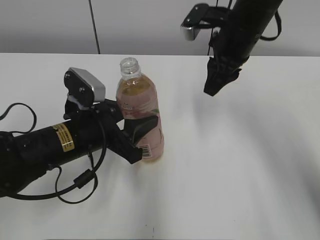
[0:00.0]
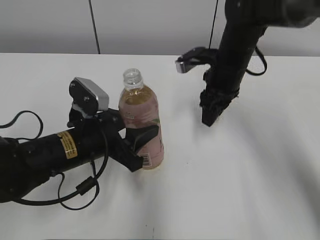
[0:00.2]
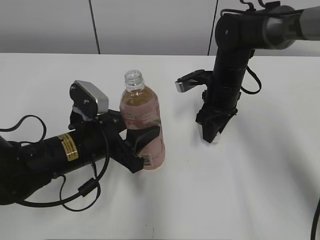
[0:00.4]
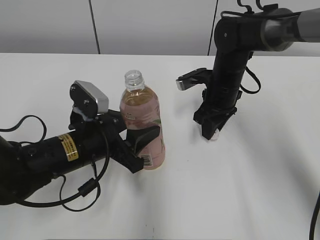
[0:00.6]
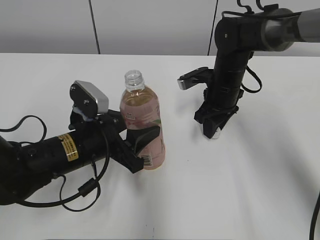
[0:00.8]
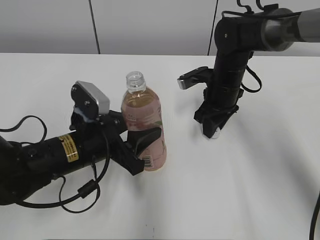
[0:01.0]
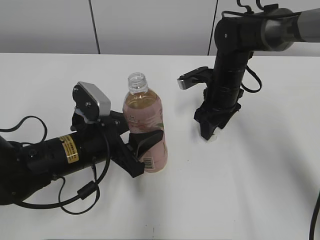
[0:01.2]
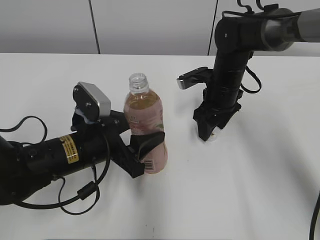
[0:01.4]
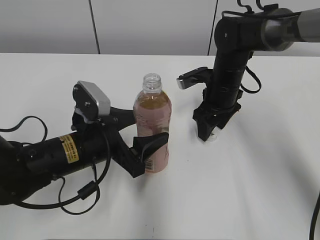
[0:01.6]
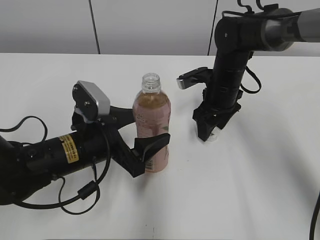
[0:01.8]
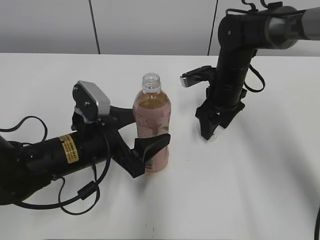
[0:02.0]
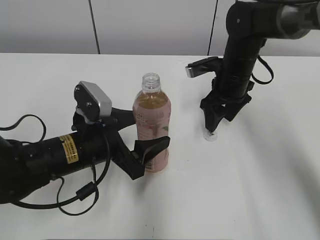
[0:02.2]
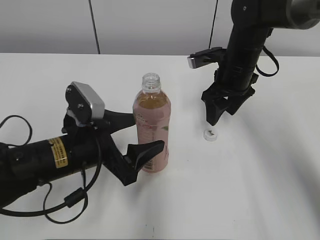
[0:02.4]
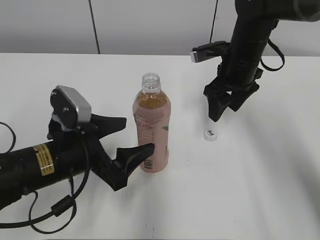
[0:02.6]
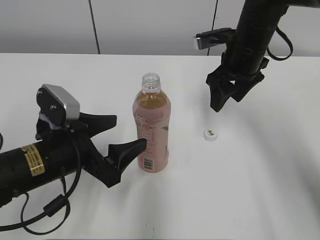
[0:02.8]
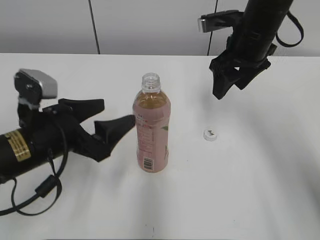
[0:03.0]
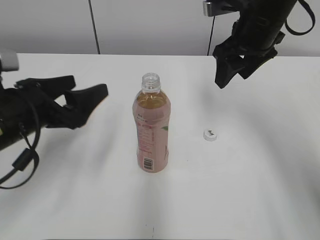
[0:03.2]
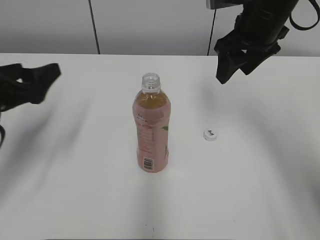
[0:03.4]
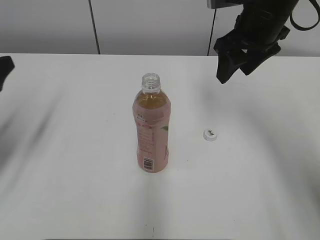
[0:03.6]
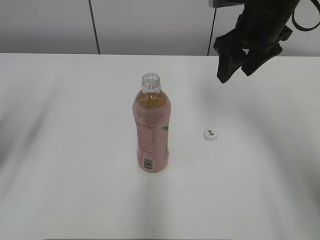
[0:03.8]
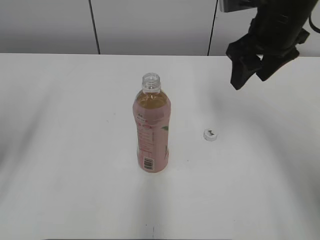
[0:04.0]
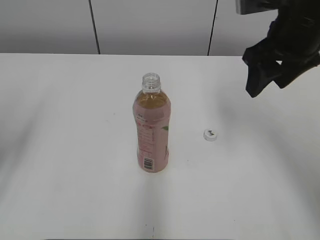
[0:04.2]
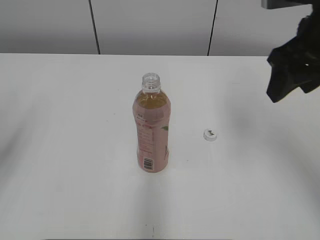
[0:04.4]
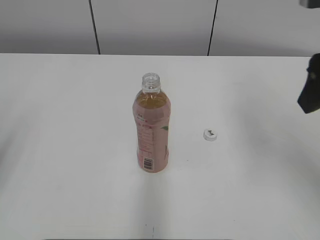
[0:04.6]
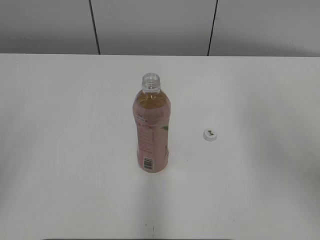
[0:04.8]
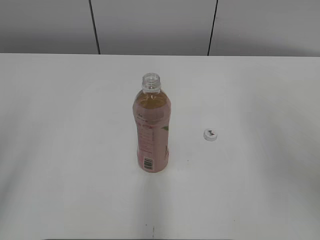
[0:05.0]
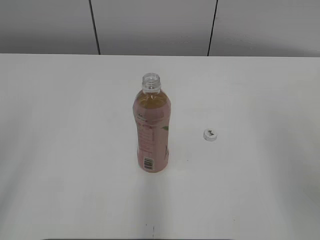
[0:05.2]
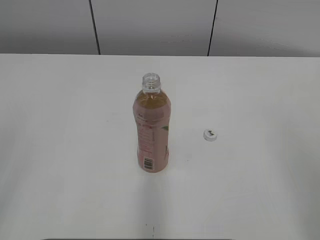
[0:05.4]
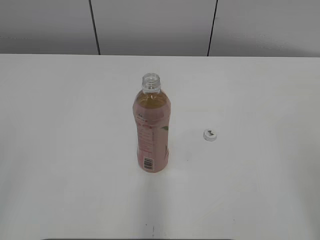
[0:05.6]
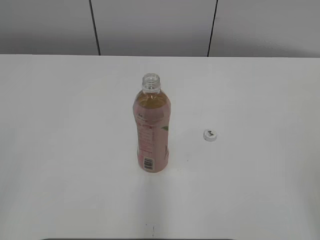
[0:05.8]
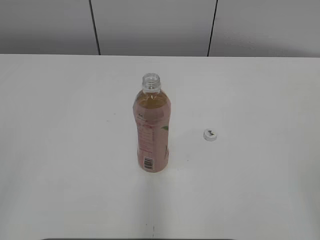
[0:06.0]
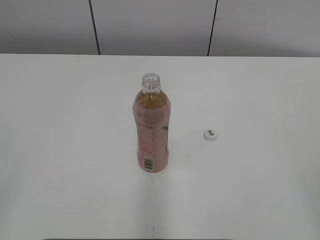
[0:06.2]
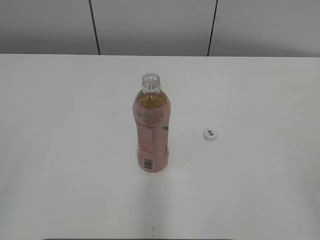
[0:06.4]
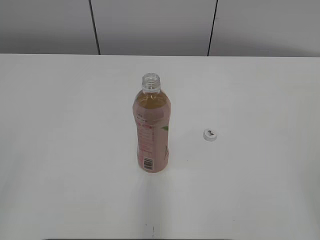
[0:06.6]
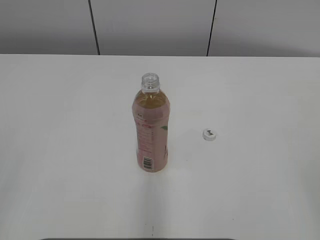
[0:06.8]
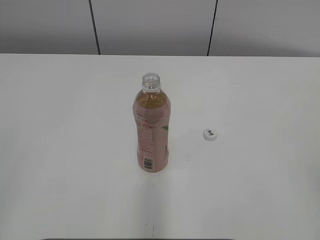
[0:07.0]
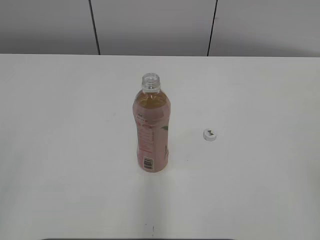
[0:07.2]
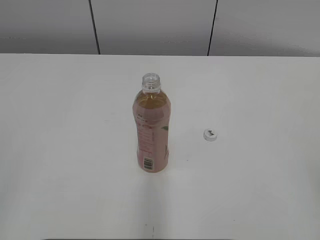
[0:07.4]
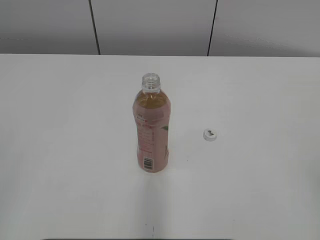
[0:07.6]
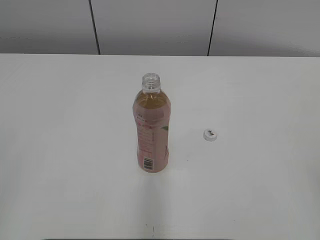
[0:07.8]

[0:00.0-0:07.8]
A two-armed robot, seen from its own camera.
Step, 0:00.0 to 0:01.6: Place the bottle cap on the right.
Step, 0:01.8 to 0:02.6: Place the Peach Oolong Tea with the left hand.
0:00.0 to 0:01.6: The right gripper travels downward by about 15 cm, and opens. Meanwhile the left gripper opens.
0:01.6 to 0:03.2: The right gripper is displaced upward by about 15 cm; the left gripper is displaced to the left and upward by some 10 cm.
0:03.2 to 0:04.6: The left gripper moves to the left, backward and upward, roughly 20 cm. Meanwhile the right gripper shifts some 15 cm backward, upward and to the right.
0:04.6 to 0:06.2: The right gripper heads backward, covering roughly 25 cm; the left gripper heads backward, covering about 15 cm, and closes.

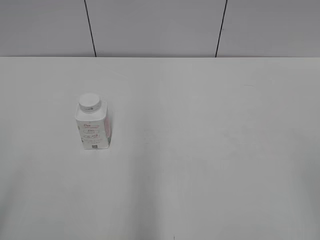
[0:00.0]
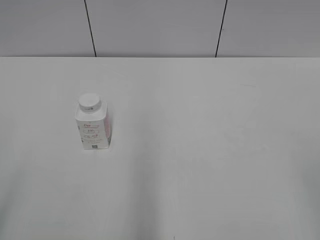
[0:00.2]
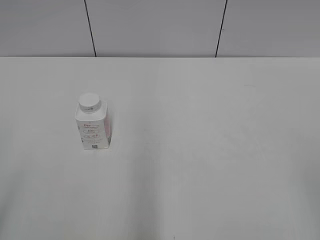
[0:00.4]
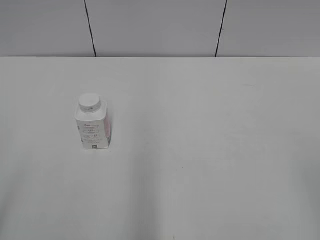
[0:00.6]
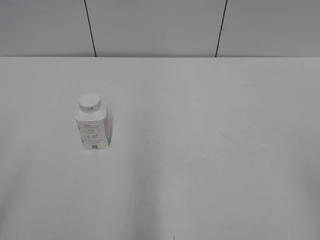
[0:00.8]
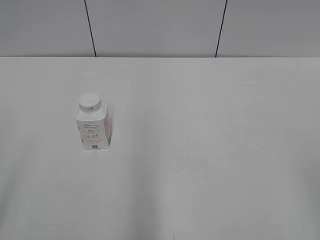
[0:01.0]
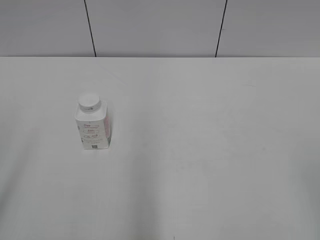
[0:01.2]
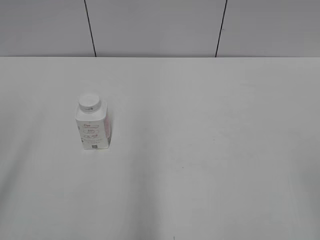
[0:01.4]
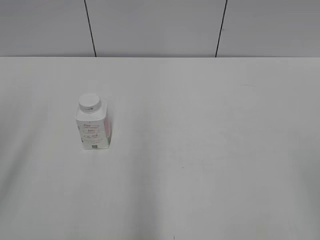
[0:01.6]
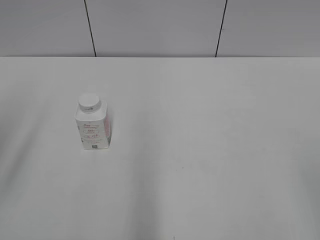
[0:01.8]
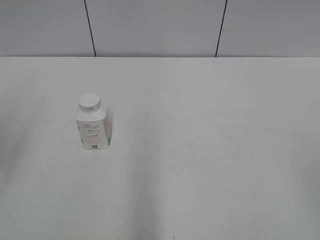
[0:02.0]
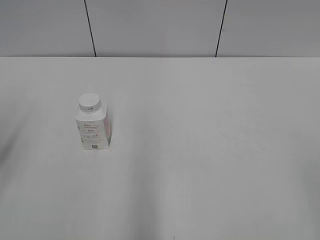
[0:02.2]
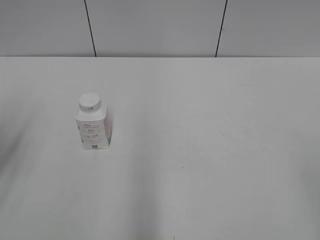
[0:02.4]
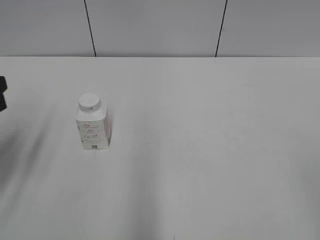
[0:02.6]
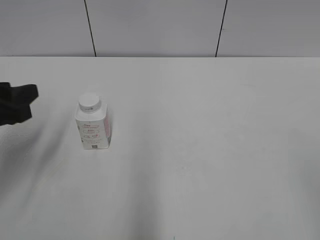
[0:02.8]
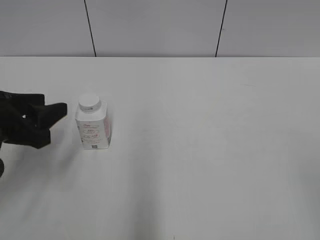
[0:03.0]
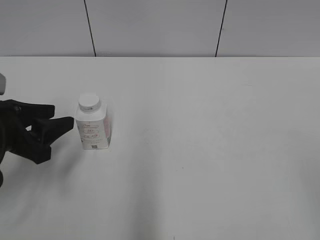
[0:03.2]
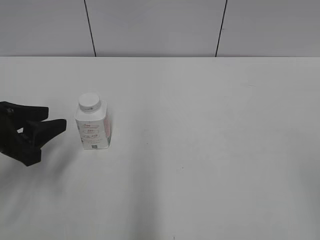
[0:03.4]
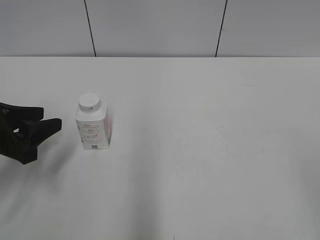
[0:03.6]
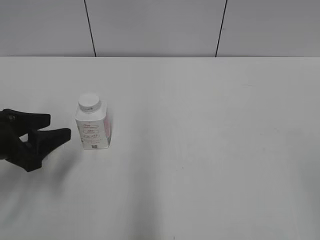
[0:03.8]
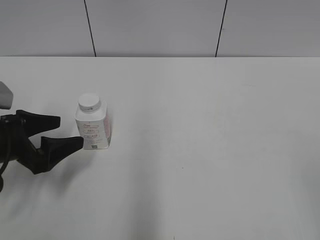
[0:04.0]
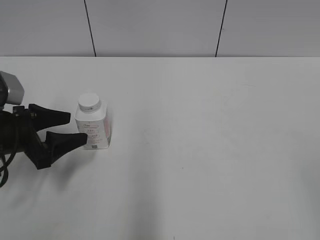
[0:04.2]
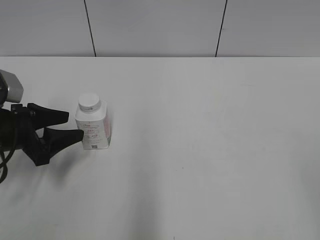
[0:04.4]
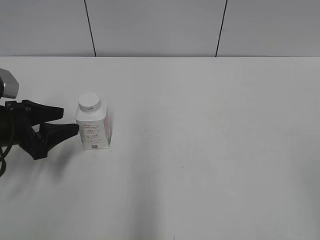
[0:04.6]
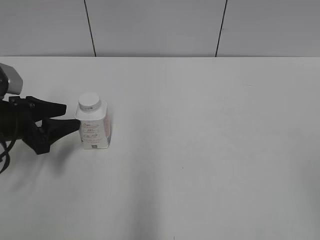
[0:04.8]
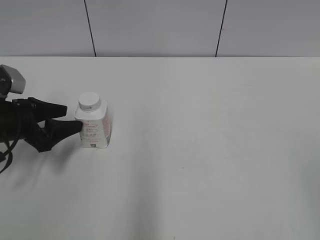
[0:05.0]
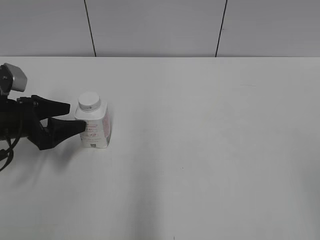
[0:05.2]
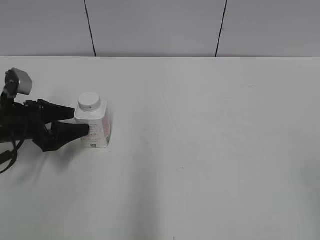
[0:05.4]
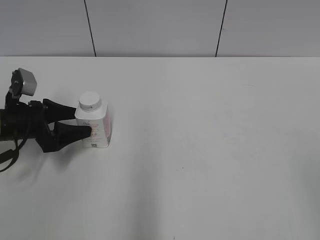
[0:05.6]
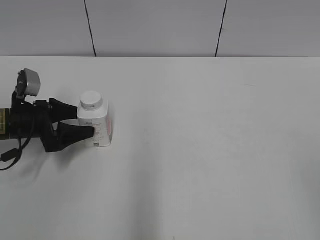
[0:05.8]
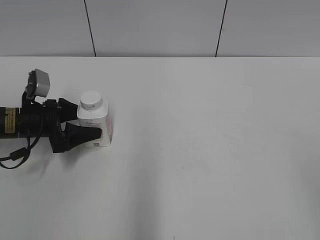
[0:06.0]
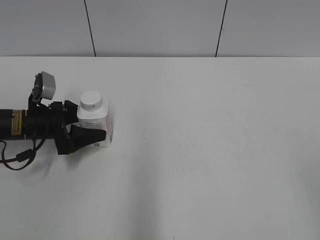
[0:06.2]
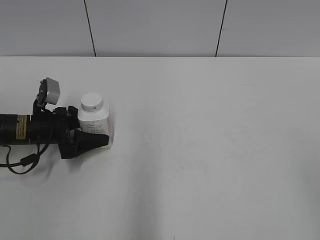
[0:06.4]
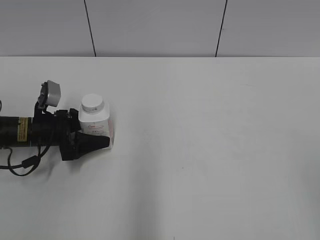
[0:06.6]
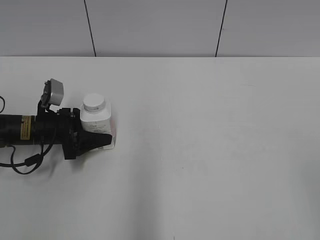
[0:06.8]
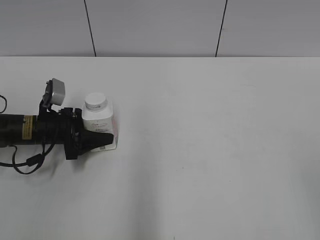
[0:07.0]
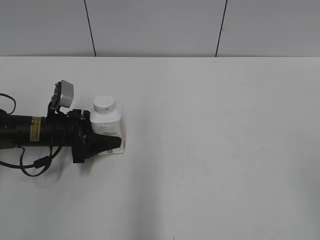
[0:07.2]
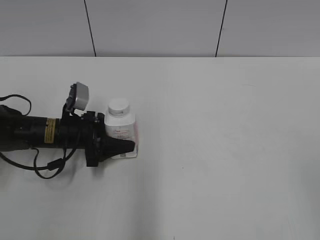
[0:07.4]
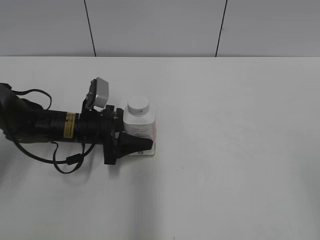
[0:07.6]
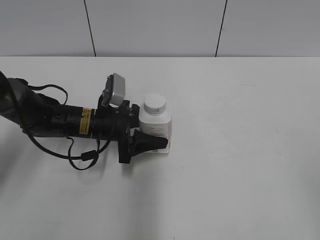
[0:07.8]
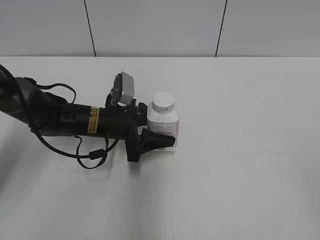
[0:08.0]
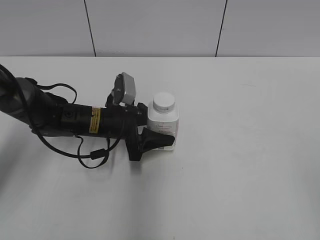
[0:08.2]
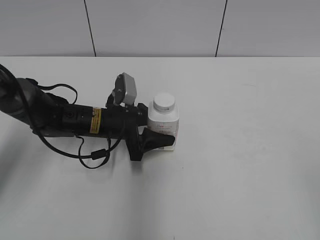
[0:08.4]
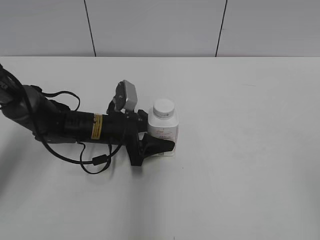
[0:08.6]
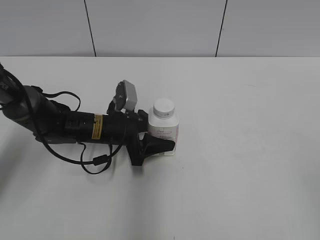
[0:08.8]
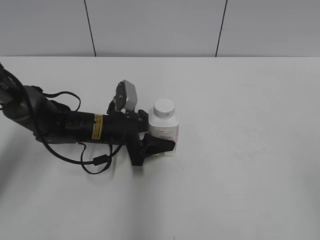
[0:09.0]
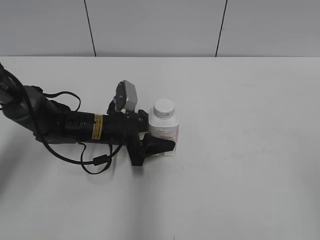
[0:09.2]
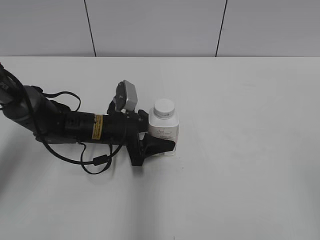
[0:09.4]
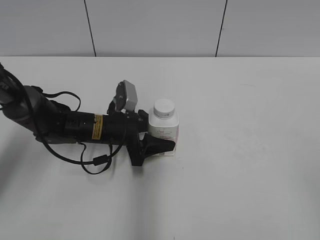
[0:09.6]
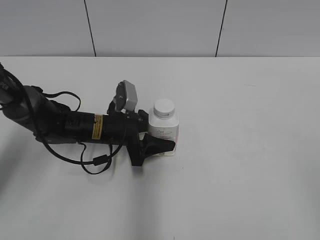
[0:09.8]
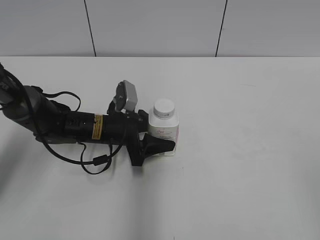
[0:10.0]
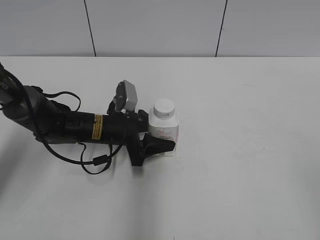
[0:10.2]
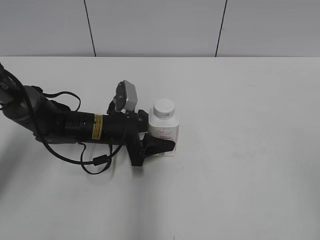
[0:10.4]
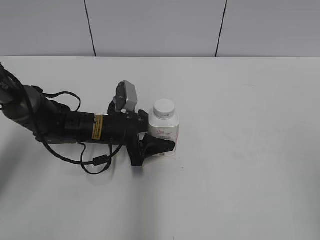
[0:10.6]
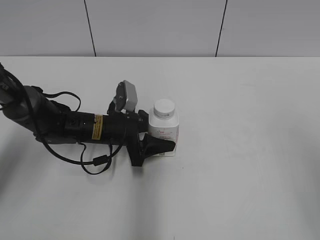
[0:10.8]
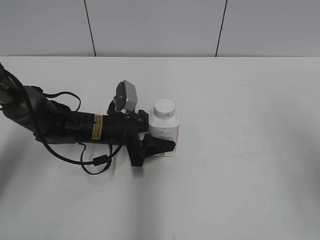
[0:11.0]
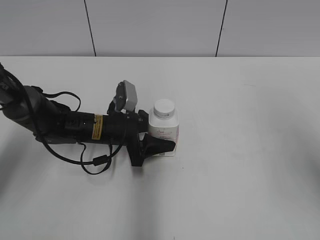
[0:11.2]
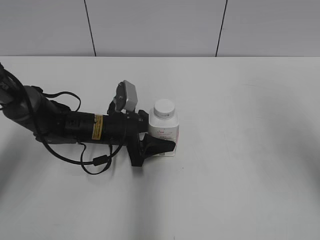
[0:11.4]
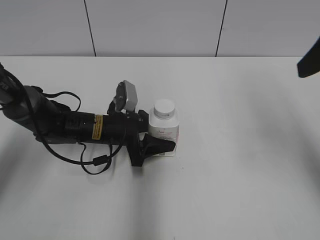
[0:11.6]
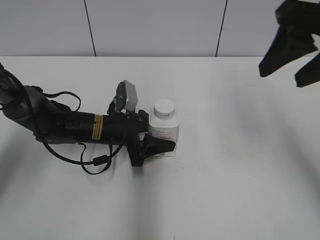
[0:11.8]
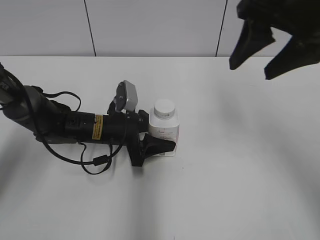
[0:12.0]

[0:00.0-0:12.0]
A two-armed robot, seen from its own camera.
Step, 0:00.0 to 0:07.0: Grasp the bottle and move it to the center of the table with the left gripper.
Step, 0:07.2 to 0:09.2: Lift the bottle and move it to the center of the table with the left gripper.
0:01.6 to 0:03.0: The left gripper shifts roughly 20 cm downward, forward and to the right, and closes.
0:03.0 to 0:04.4: The left gripper moves downward, about 5 cm, and opens its fingers.
0:04.4 to 0:06.0: The left gripper goes roughly 5 cm forward.
0:06.0 to 0:07.6: The left gripper goes roughly 10 cm to the right, and closes.
0:07.6 to 0:09.0: The left gripper is displaced to the right by some 5 cm.
0:09.0 to 0:10.4: Both grippers stay about where they are.
0:10.4 to 0:12.0: The right gripper is displaced forward and to the left by roughly 35 cm.

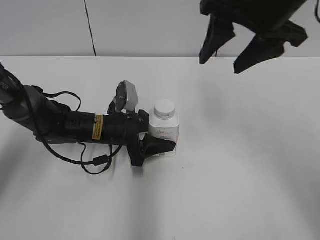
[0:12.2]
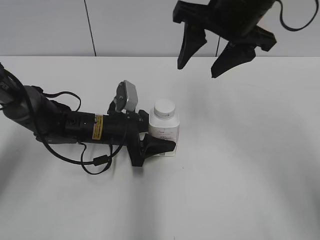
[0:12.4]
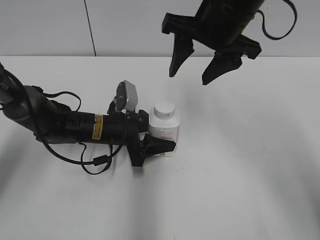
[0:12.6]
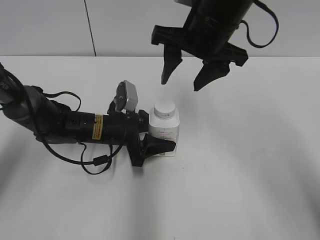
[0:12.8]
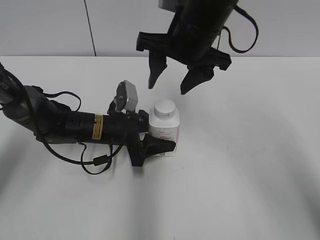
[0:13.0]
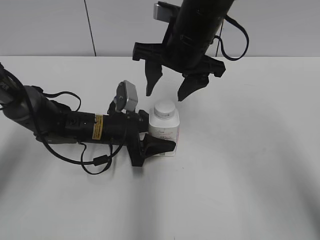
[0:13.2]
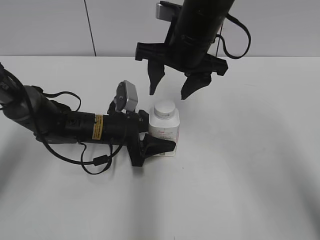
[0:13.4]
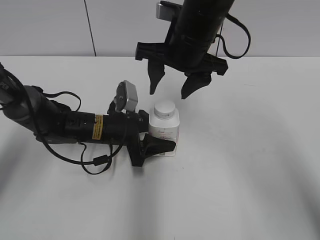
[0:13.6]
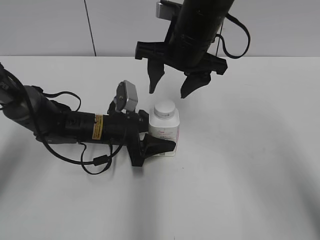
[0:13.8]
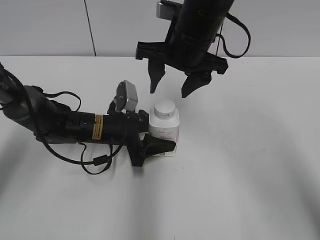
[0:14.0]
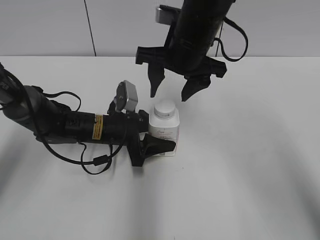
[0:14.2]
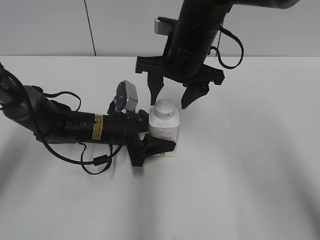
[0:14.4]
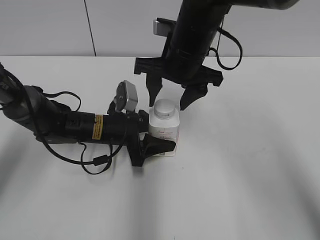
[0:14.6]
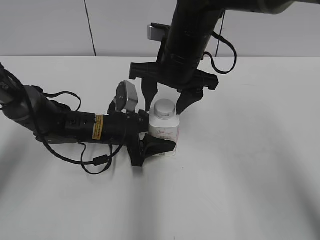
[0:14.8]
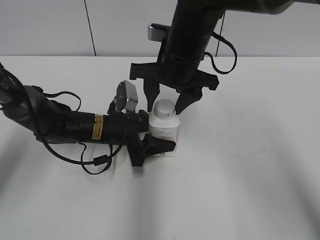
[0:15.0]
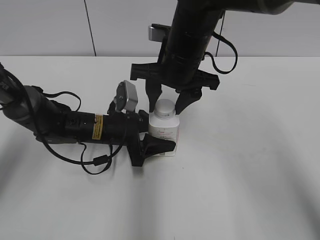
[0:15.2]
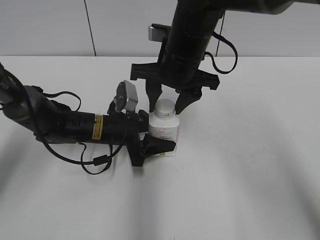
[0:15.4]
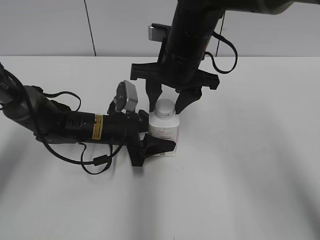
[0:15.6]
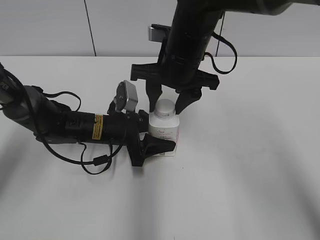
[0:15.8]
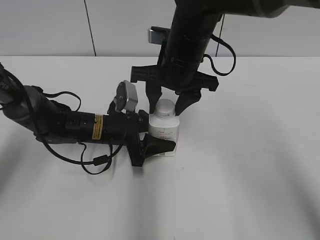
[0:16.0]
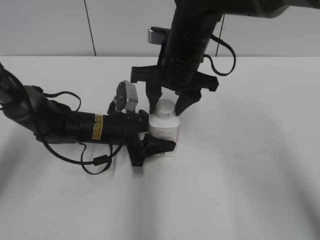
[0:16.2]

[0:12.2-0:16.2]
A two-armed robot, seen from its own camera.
0:12.2 to 0:13.6: The right gripper goes approximately 10 cm to the left and downward.
0:13.6 to 0:14.8: The grippers stay close to where they were, moving slightly.
0:14.8 to 0:16.2: The right gripper closes.
